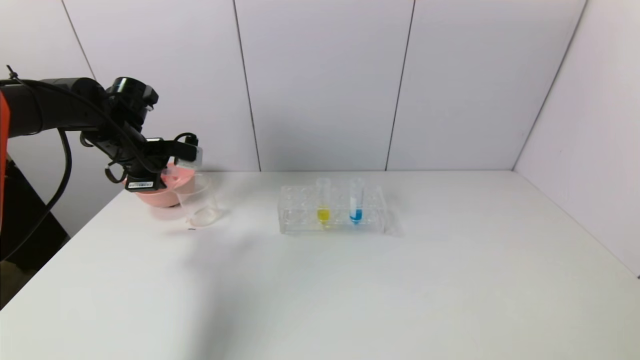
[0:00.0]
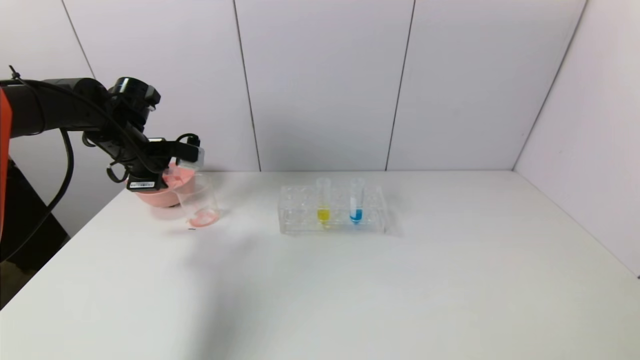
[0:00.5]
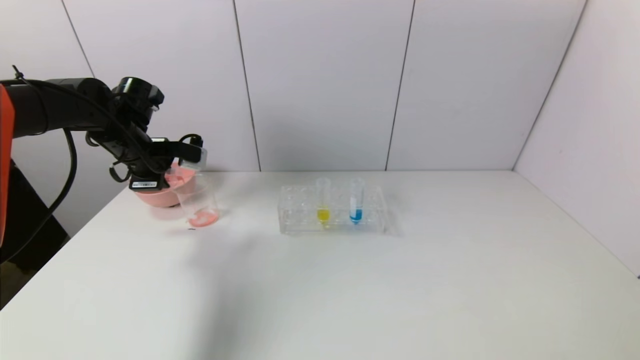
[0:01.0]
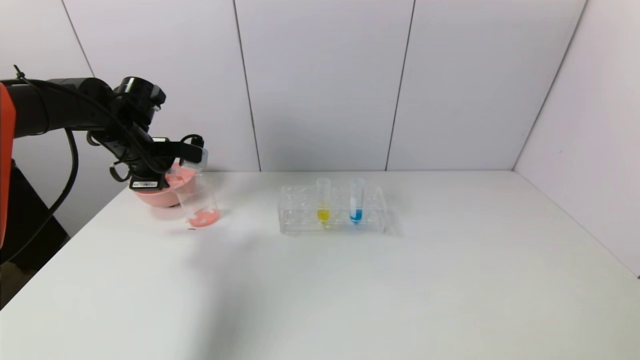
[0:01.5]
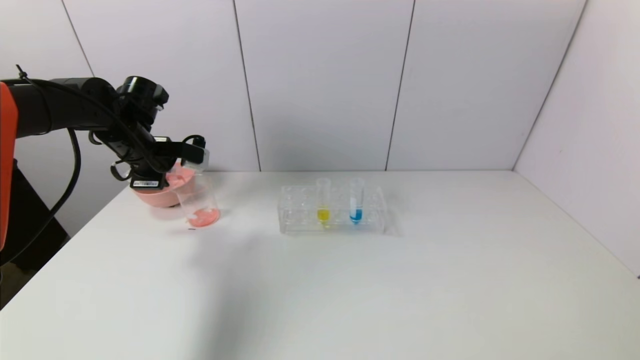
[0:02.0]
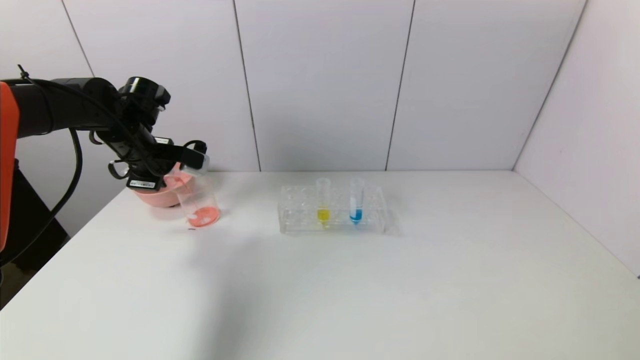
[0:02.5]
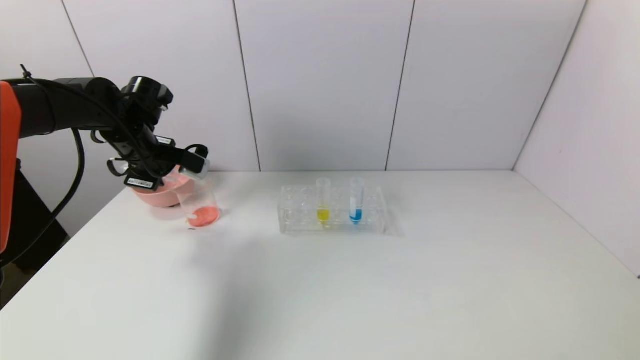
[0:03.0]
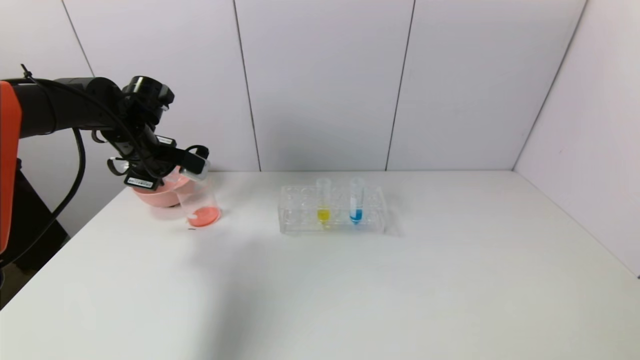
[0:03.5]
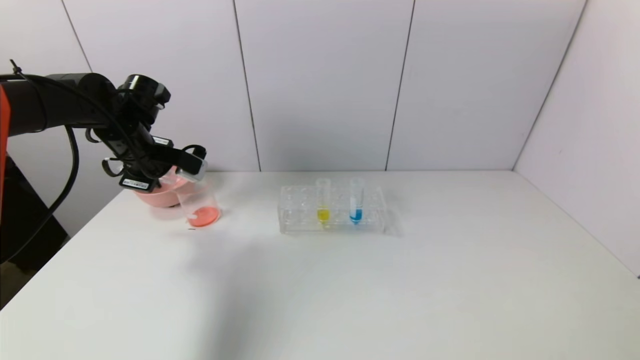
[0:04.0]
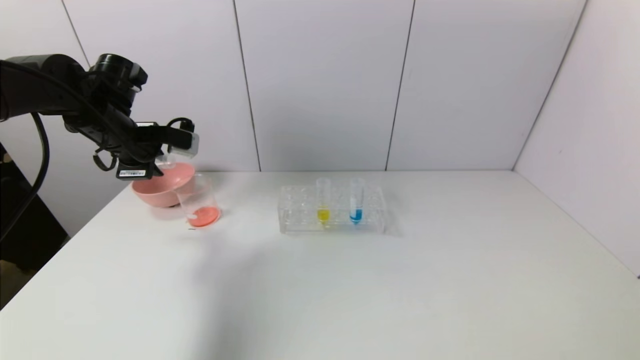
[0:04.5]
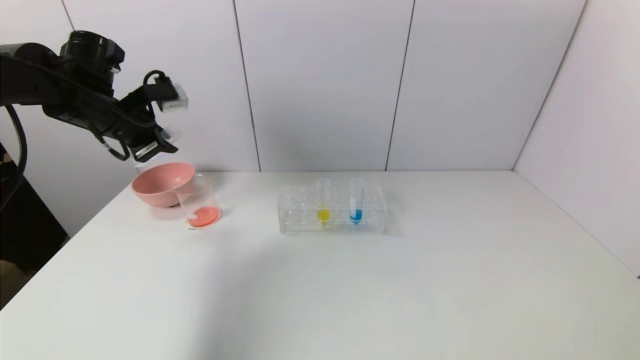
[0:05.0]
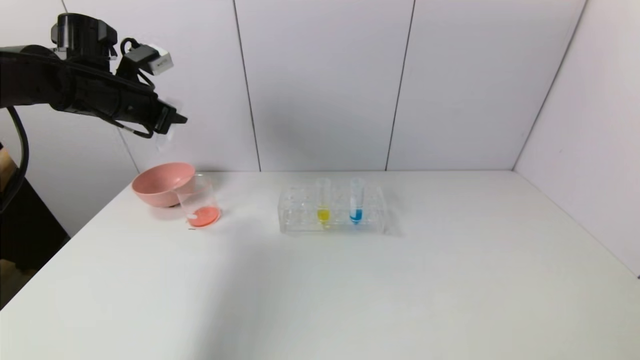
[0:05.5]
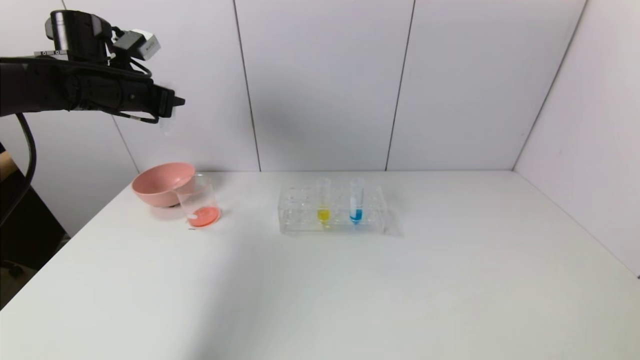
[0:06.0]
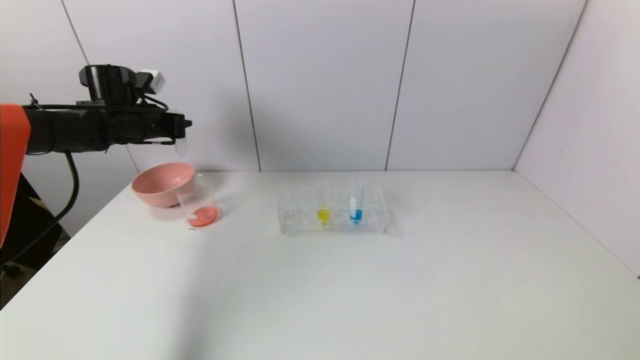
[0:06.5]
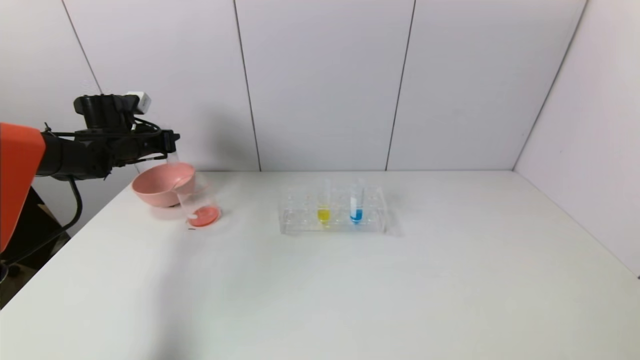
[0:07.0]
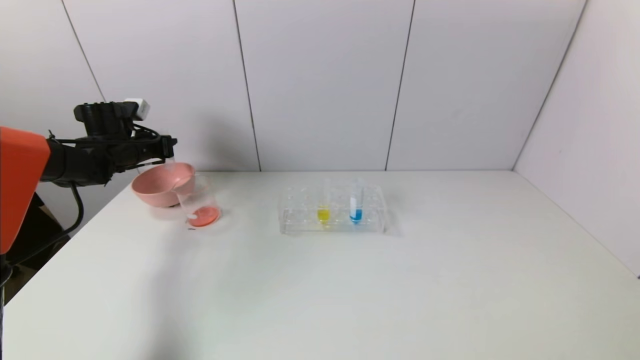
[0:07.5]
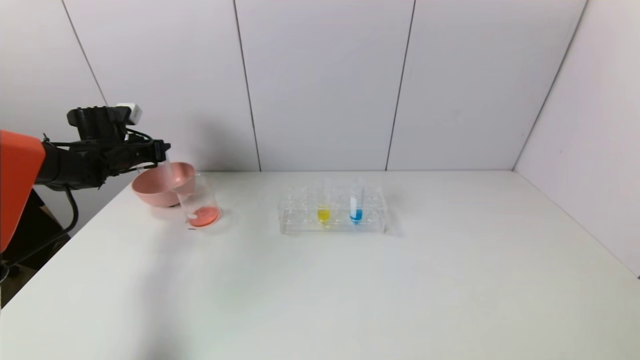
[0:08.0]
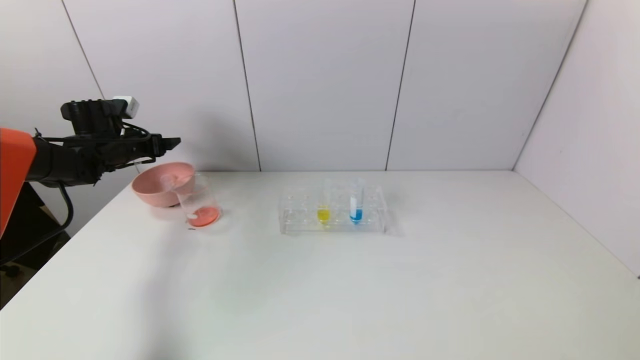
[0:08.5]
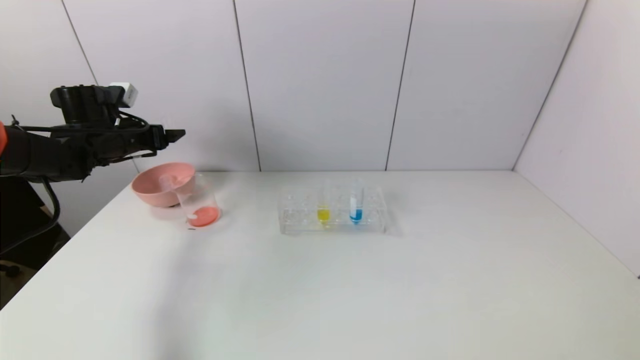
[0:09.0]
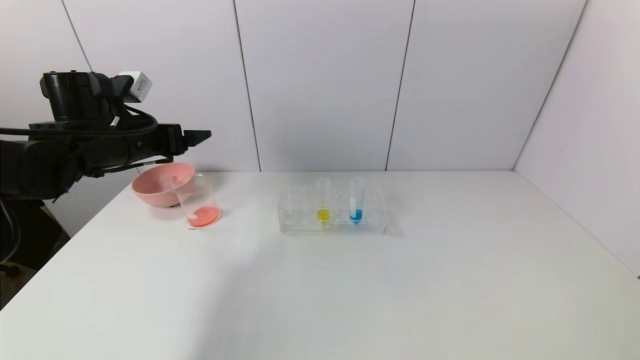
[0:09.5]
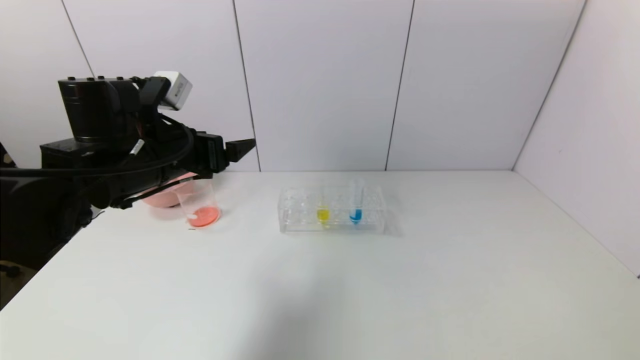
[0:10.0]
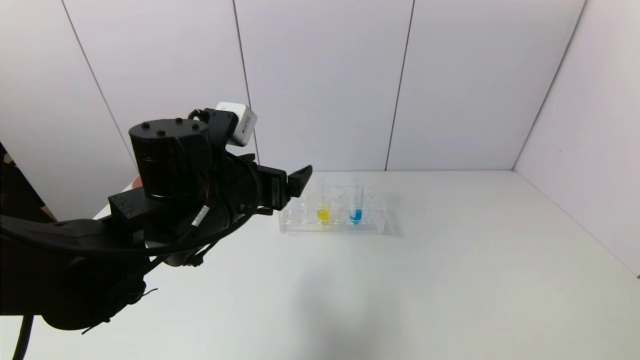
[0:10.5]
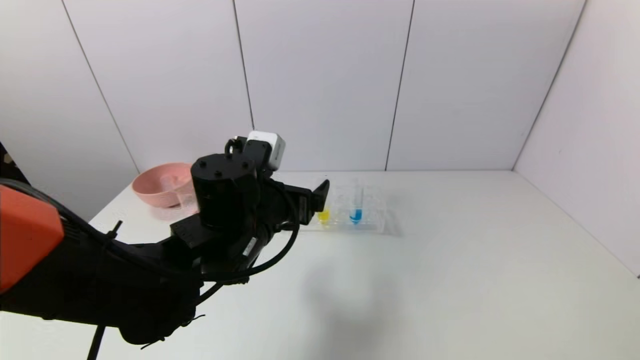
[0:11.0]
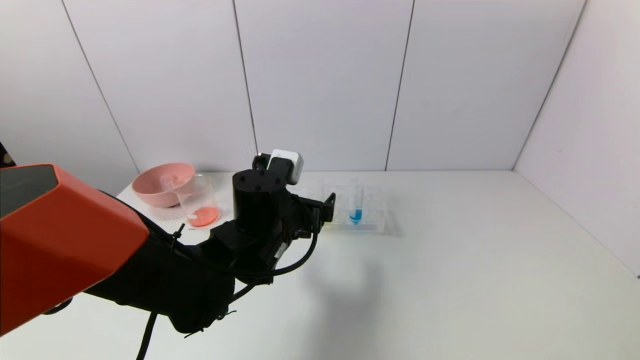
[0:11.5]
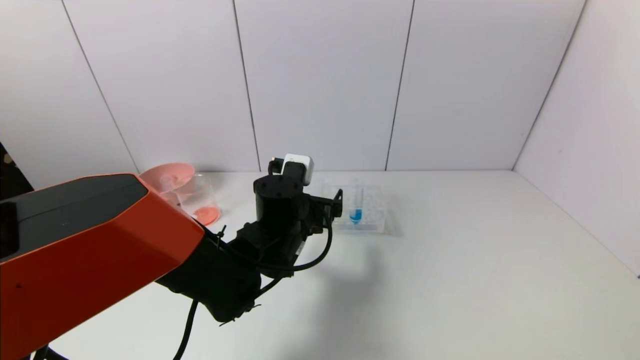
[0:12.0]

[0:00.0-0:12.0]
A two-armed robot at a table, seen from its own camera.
Task of the whole recording: pick up the test tube with yellow pigment and the test tube with red pigment by grippers and pour them into the beaker.
Step, 0:00.0 to 0:03.5: Pour the red reagent into the graduated cylinder with the left gripper.
Step, 0:04.0 to 0:08.0: Place the test tube into the pink bowl with the left gripper.
0:00.0 to 0:02.0: The two grippers keep their place.
0:02.0 to 0:04.0: The grippers stay close to where they were, moving slightly.
0:04.0 to 0:06.0: The left gripper travels upward by roughly 5 cm.
0:06.0 to 0:08.0: The left gripper goes about 15 cm downward, to the left and forward.
0:08.0 to 0:10.0: The left gripper travels to the right and backward by approximately 25 cm, and opens.
0:10.0 to 0:12.0: The left gripper heads to the right and downward, covering about 20 cm.

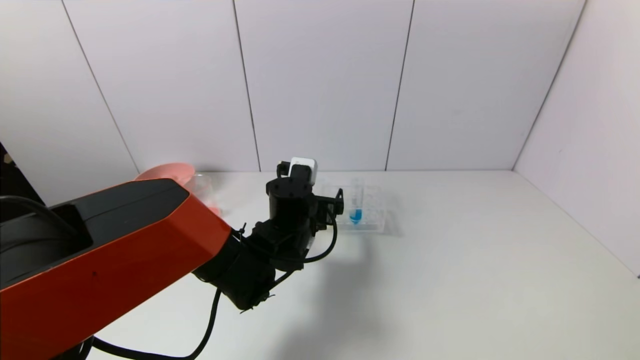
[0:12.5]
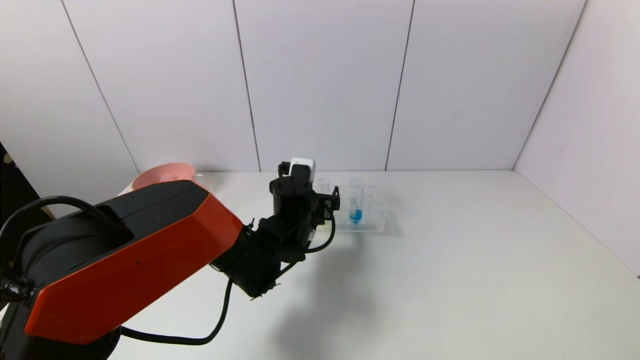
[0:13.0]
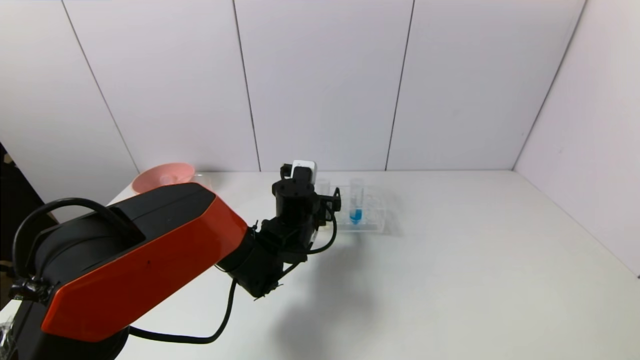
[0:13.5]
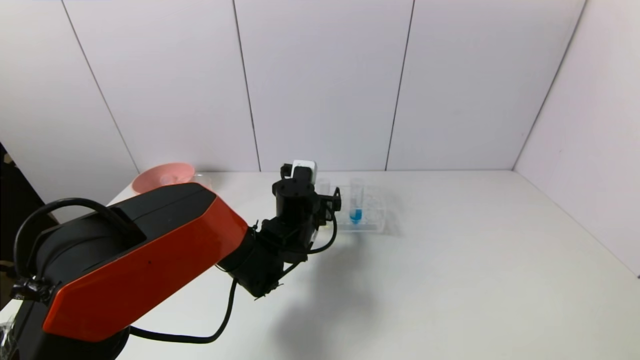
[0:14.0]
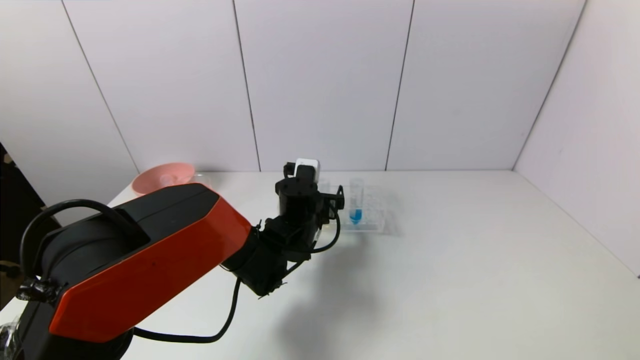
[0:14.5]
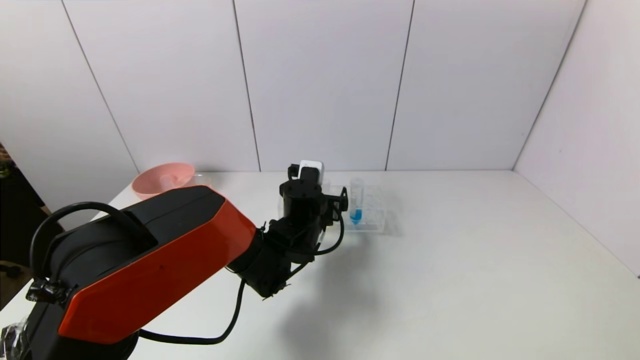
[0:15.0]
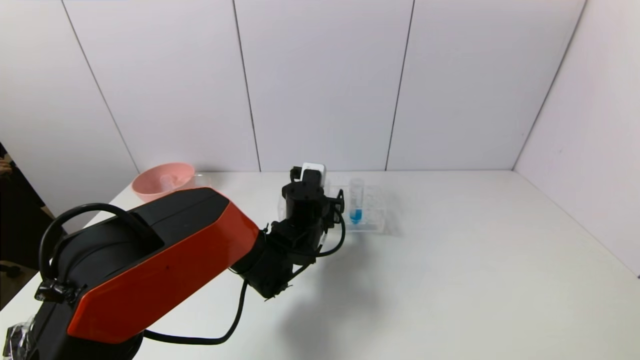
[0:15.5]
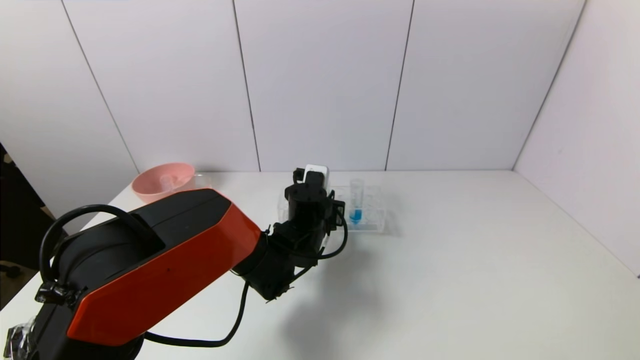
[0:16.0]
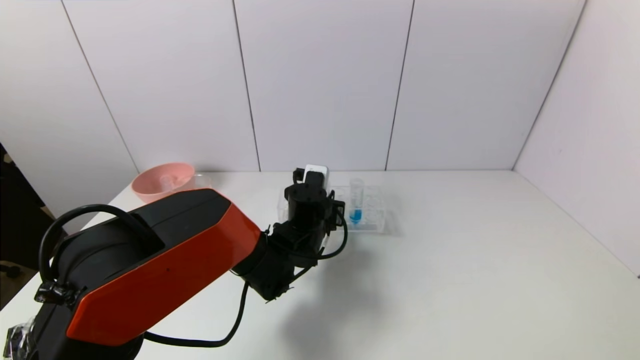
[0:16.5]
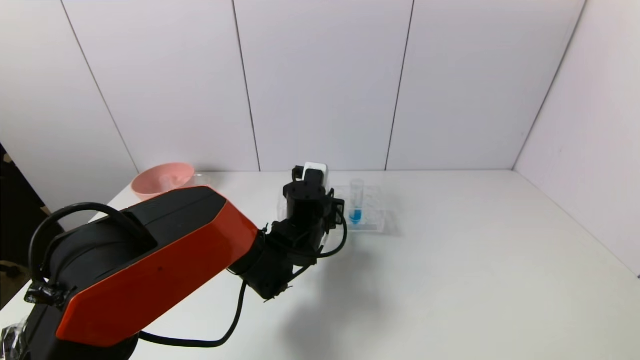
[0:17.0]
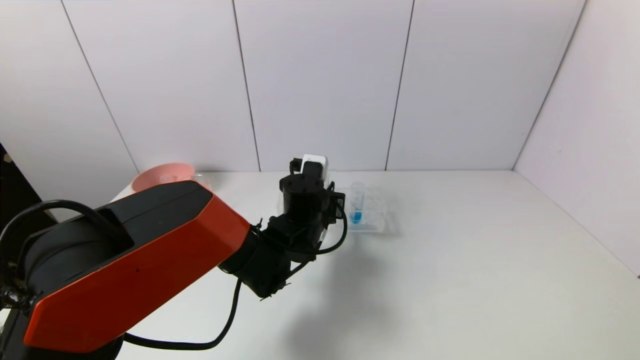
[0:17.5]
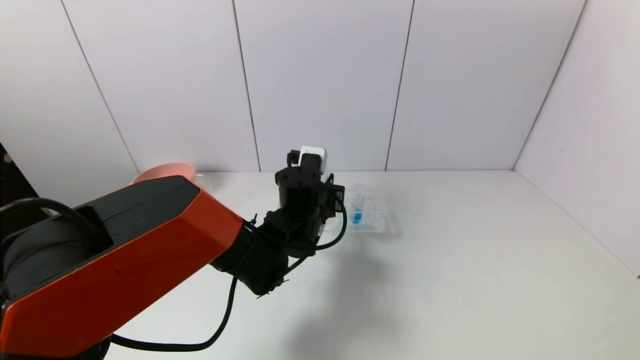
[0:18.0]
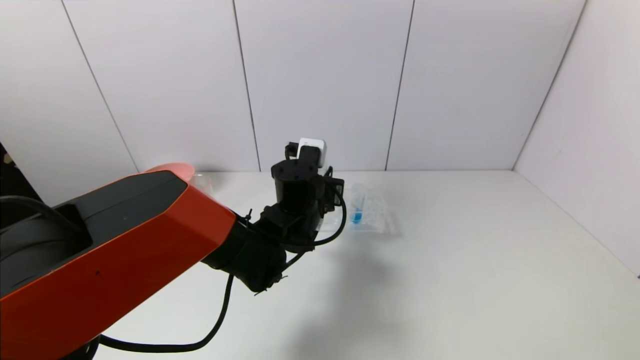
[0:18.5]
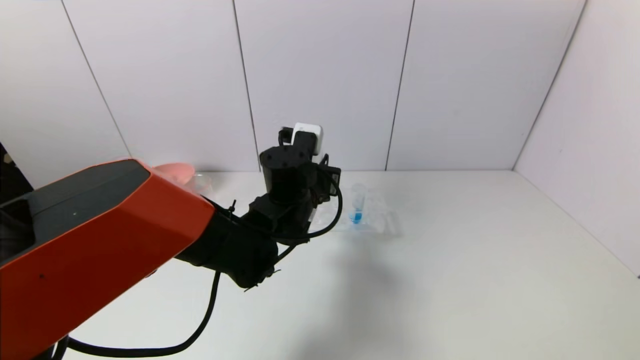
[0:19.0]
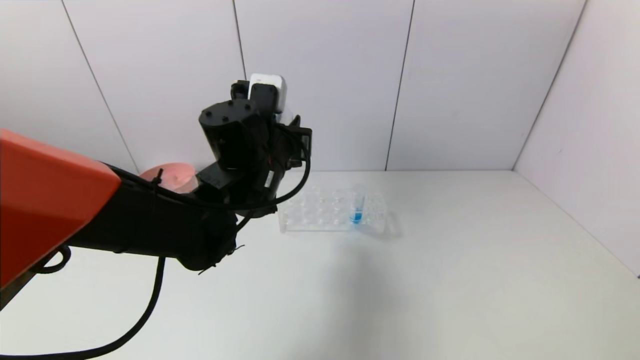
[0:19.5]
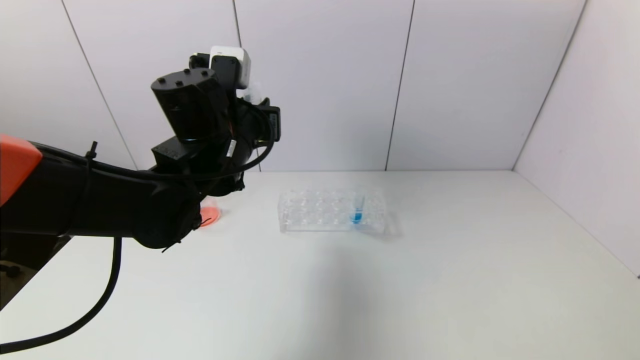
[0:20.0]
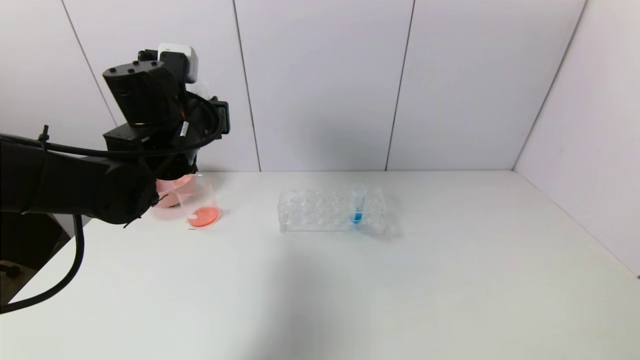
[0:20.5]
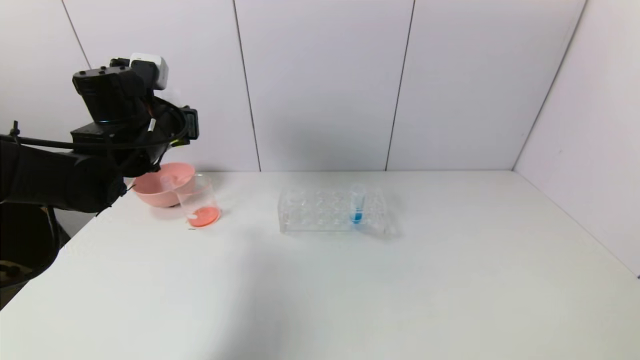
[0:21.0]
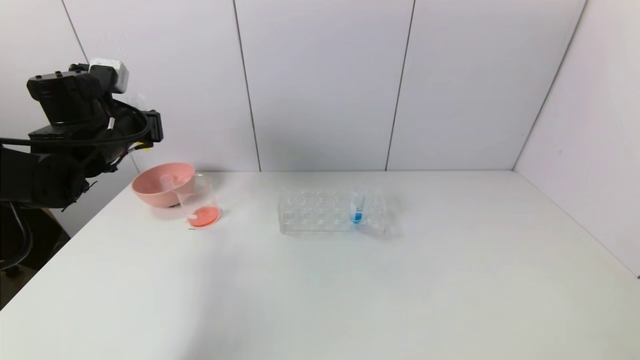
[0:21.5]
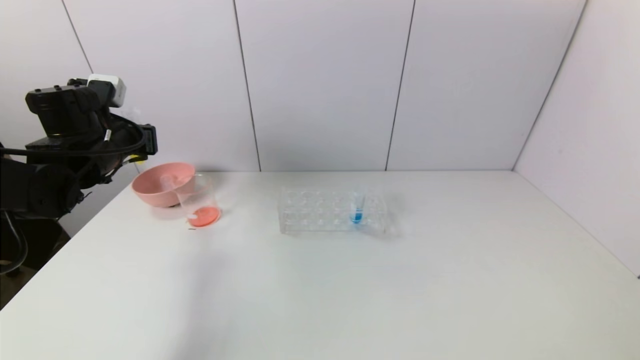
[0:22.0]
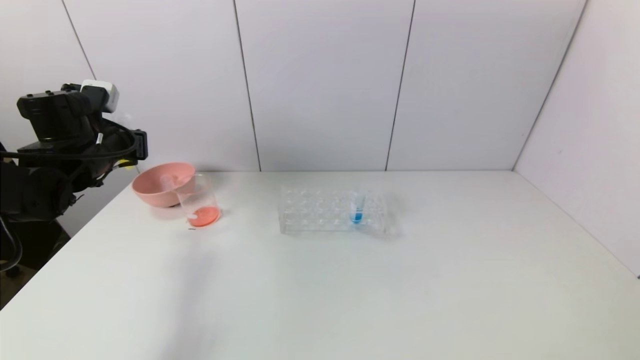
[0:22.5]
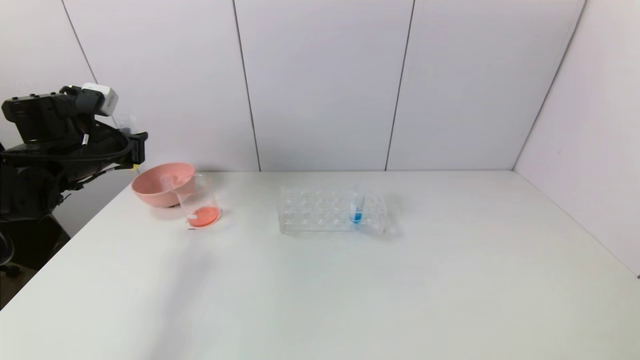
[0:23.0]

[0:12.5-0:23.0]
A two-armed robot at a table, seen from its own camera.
Task of the whole recording: pick up the test tube with yellow pigment and the test tube with red pigment by grippers and pour them into the beaker.
Step, 0:12.5 to 0:16.0: Grasp the yellow reagent with the left gripper.
0:12.5 to 0:14.5: There are only small adjustments of the grippers.
0:14.5 to 0:16.5: The left gripper closes its fingers.
0:16.5 to 0:19.0: The left gripper moves upward, approximately 10 cm.
0:19.0 to 0:21.0: The left gripper is displaced to the left by approximately 20 cm.
0:21.0 to 0:23.0: The left gripper shifts roughly 10 cm to the left.
